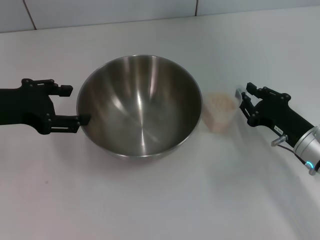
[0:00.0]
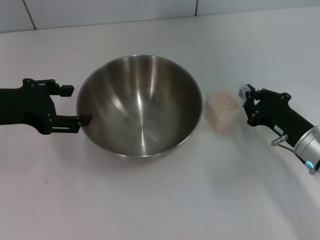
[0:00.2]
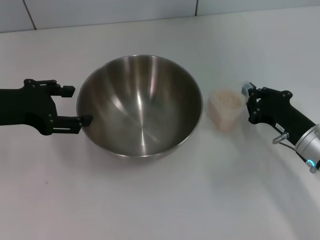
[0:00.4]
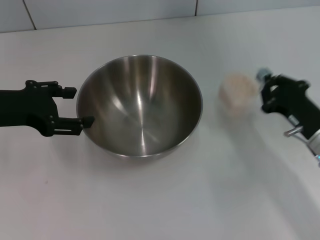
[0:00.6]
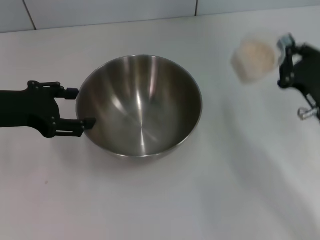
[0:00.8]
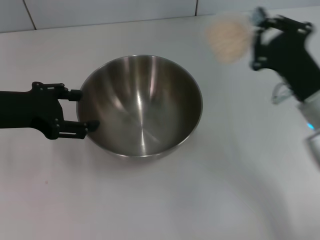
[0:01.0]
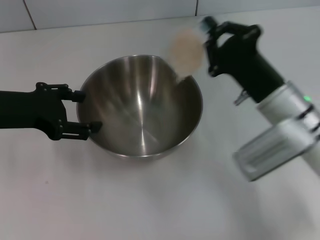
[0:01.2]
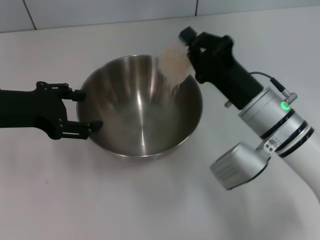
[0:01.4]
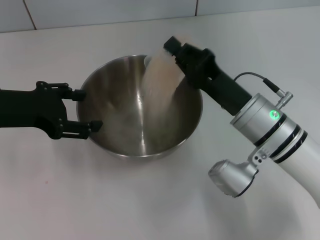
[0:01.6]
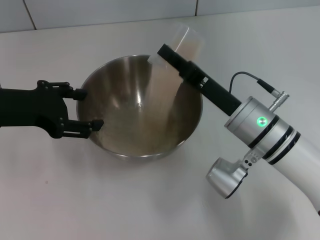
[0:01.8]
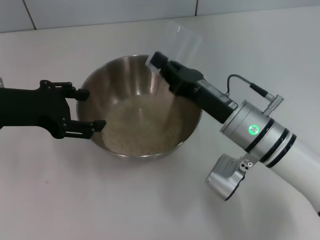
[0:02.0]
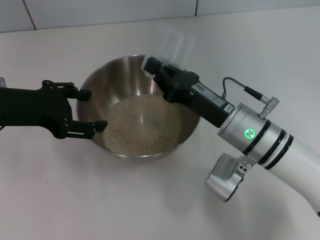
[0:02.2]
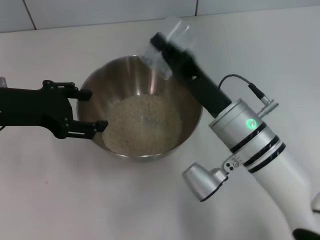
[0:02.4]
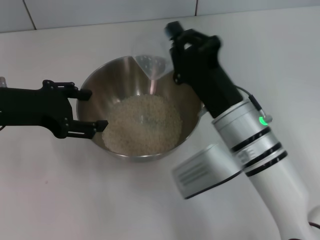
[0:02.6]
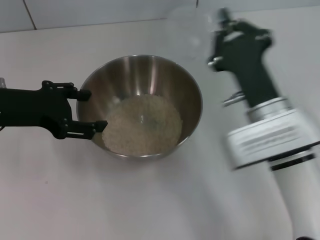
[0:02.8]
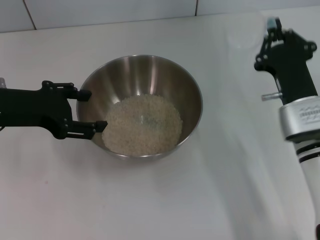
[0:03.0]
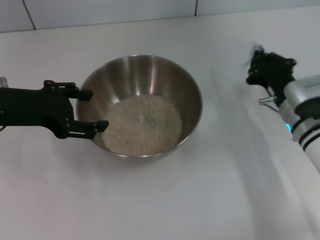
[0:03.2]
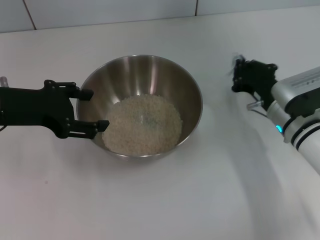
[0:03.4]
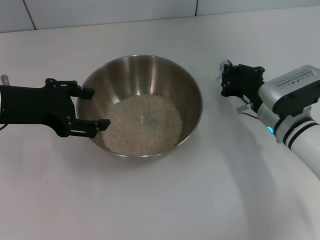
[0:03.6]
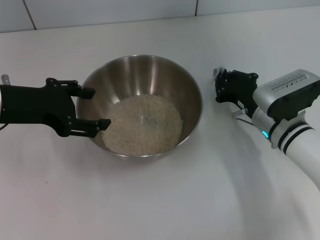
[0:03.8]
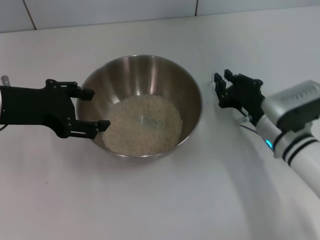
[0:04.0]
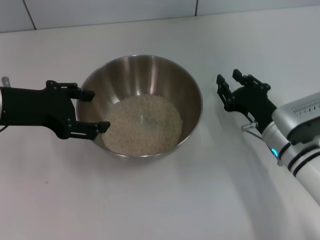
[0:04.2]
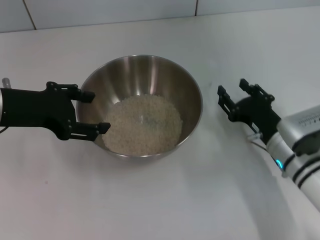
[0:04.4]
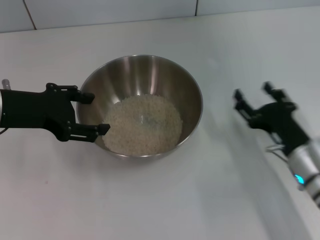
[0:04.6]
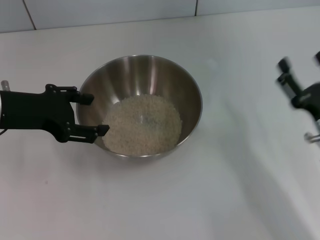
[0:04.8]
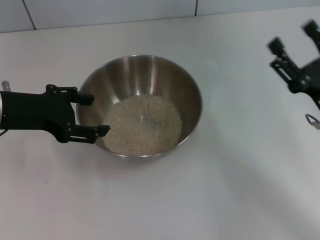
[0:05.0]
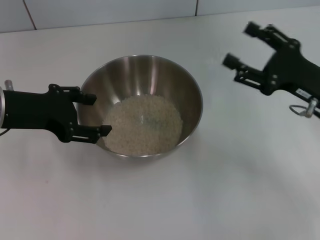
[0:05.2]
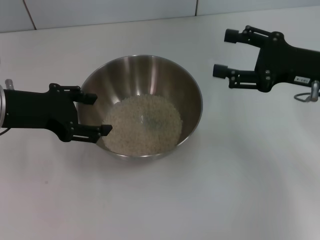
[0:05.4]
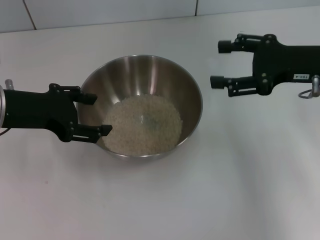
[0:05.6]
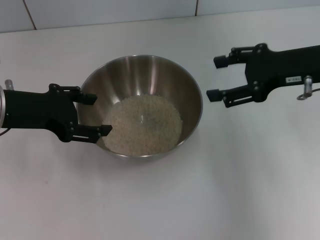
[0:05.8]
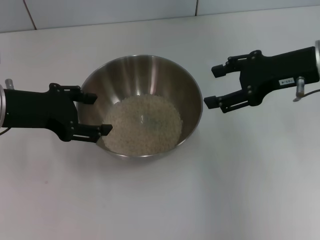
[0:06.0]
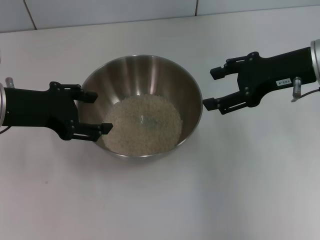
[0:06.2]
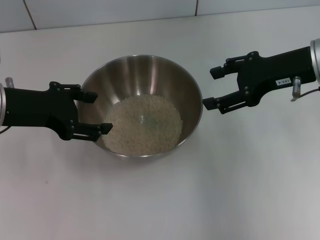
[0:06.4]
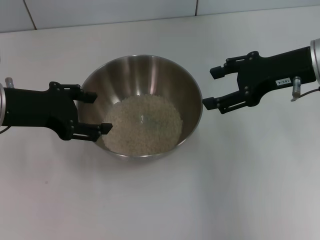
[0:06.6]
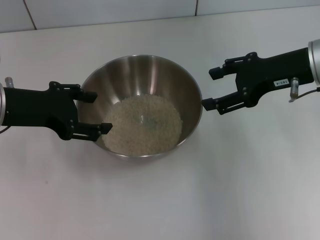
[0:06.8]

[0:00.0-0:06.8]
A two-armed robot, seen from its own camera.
Task of the whole recording: Place the bowl in the middle of the table with one hand and pour the rice from the grain cup into it with the other hand.
Step, 0:01.0 to 0:02.6: Pour the rice from the cup into the bowl with the right gripper.
Step, 0:02.8 to 0:04.2: Place the cup on the table with the right gripper.
0:00.0 to 0:01.4: The right gripper moves to the left and upward, approximately 10 cm, and closes its fingers.
0:02.8 to 0:04.0: The right gripper heads downward, covering about 5 cm.
0:04.0 to 0:05.4: The right gripper travels upward and to the right by some 15 cm, and opens its fingers.
0:05.4 to 0:06.8: The right gripper shifts by some 5 cm.

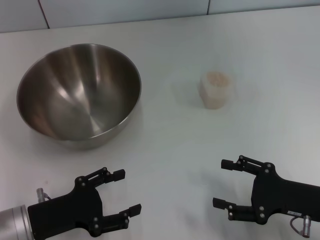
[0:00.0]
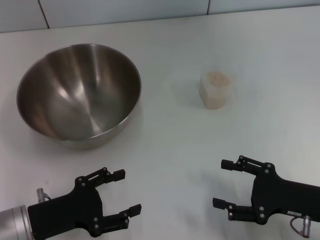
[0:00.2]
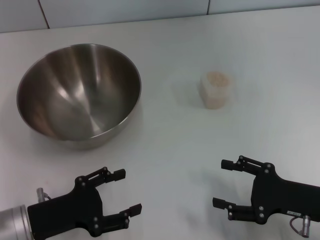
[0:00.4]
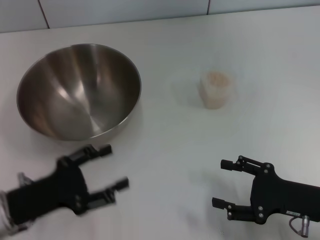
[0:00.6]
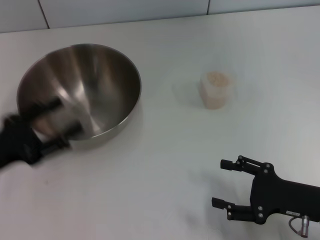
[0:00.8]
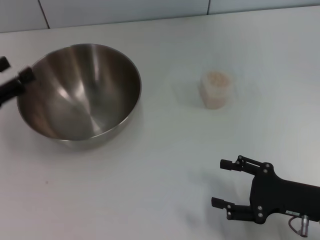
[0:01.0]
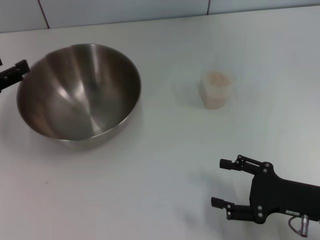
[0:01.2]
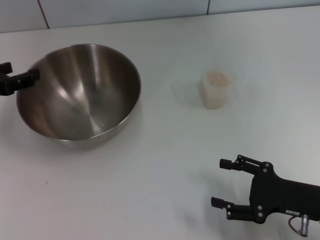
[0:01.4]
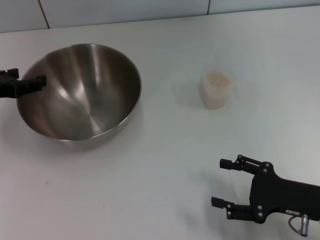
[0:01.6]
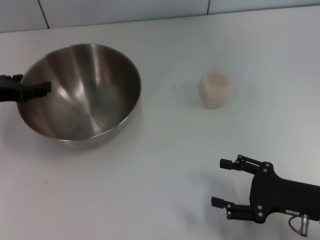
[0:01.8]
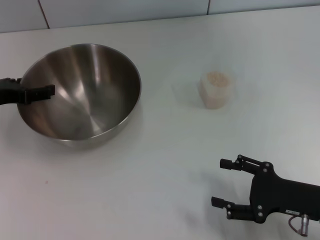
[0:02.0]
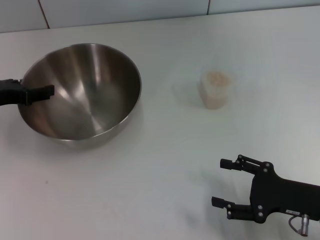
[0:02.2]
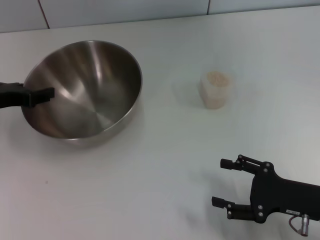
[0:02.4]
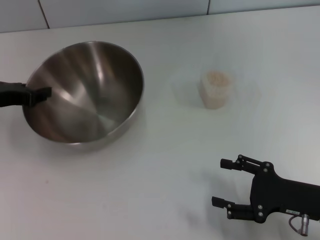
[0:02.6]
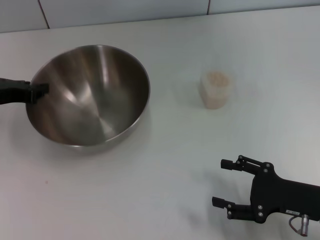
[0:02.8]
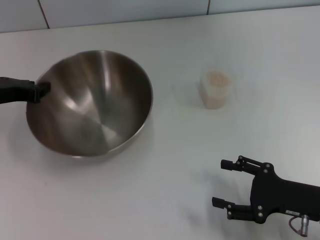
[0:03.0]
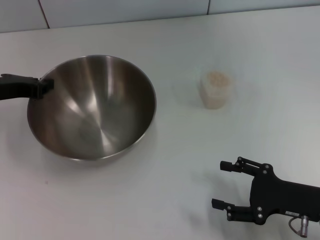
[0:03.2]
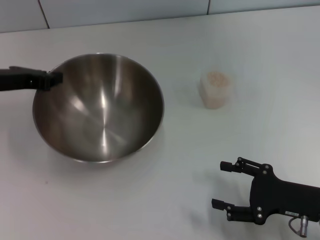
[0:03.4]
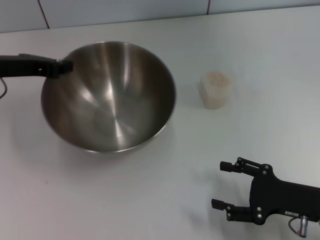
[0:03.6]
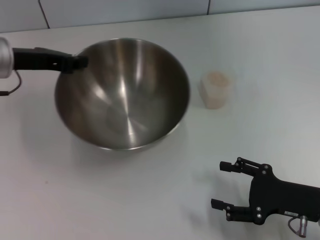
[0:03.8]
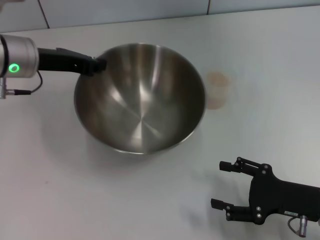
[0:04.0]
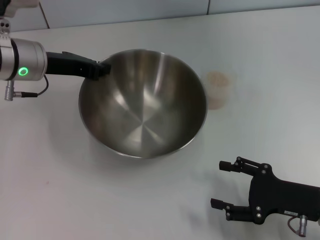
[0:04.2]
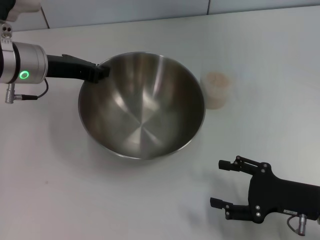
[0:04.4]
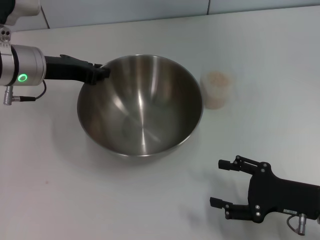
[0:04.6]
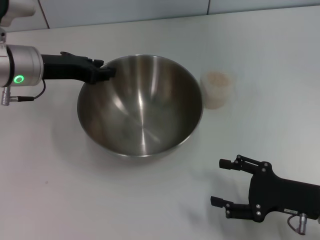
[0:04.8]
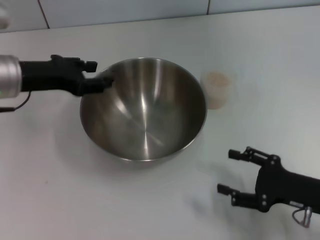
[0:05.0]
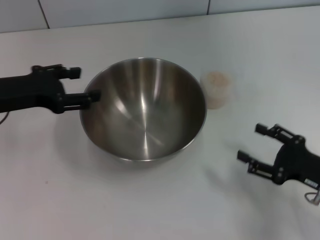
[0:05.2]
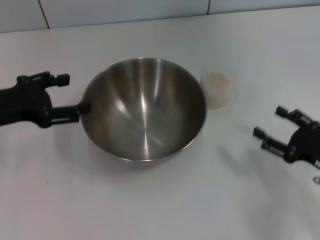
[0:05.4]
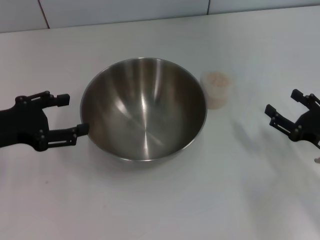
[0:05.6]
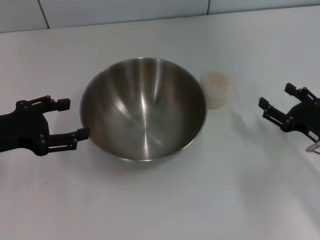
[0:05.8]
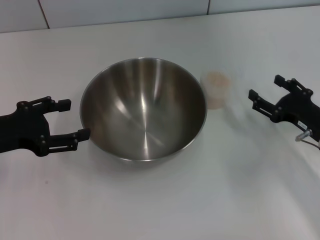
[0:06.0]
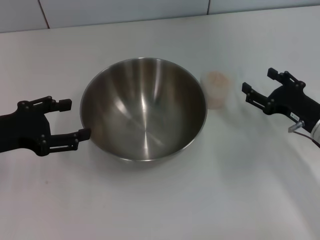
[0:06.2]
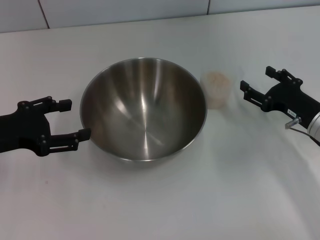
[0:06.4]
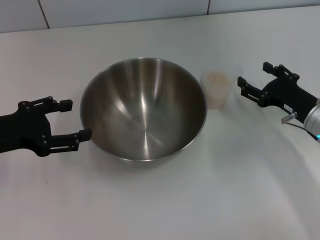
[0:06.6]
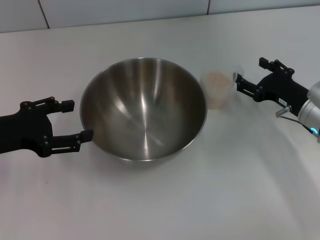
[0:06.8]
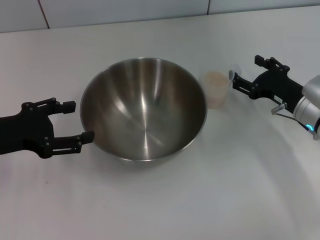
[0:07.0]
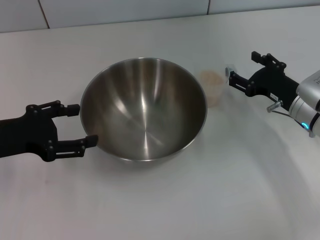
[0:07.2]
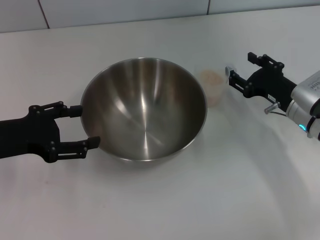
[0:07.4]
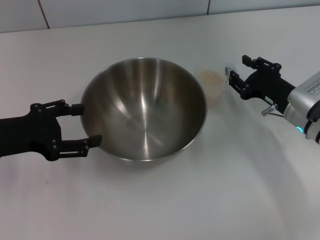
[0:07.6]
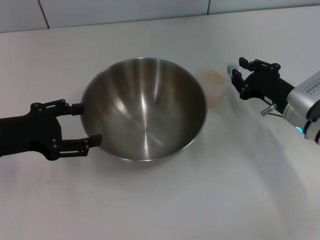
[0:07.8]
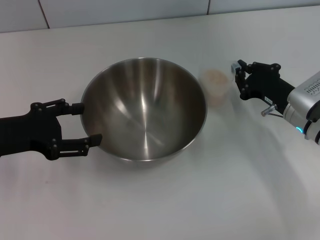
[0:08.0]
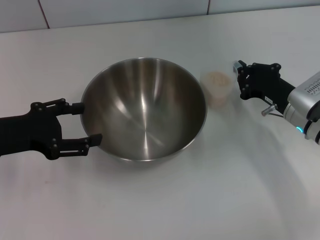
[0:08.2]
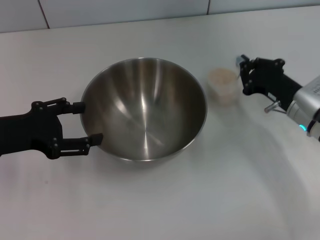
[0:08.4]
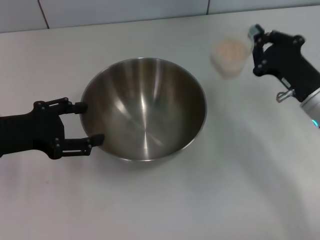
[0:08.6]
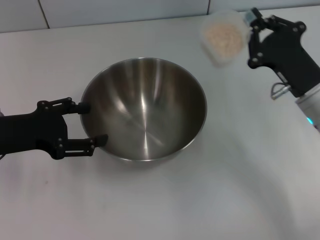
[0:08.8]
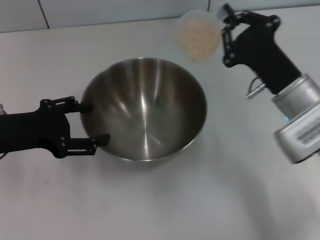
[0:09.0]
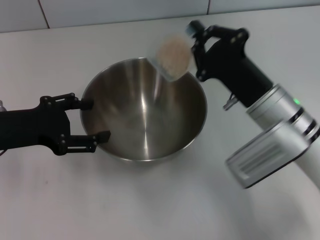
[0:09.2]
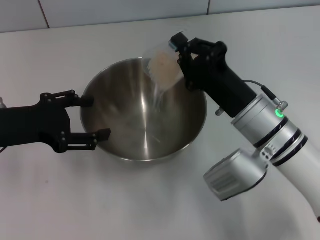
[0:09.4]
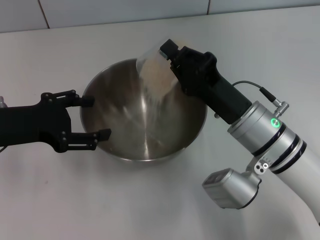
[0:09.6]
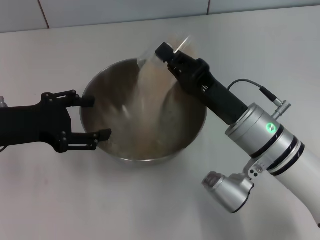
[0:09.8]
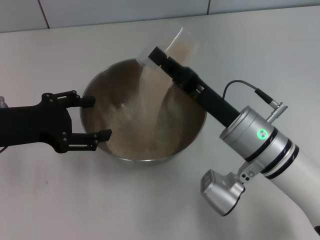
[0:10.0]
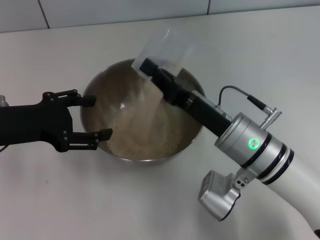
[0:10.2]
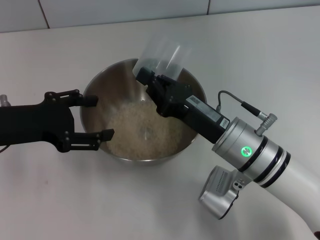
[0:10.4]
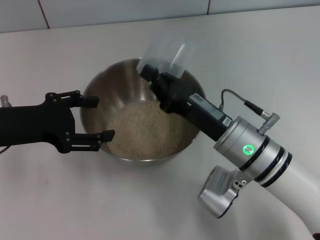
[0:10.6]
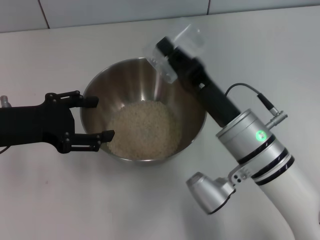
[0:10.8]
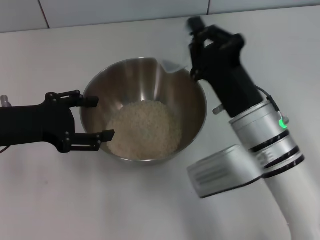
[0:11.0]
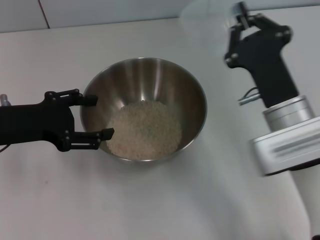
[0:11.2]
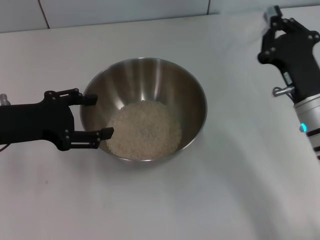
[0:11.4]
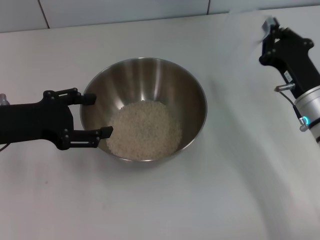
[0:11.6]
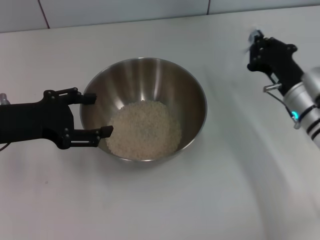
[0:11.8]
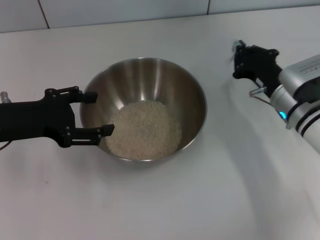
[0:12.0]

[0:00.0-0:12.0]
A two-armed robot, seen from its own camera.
Task of the whole recording: Place the bowl in the middle of the table with one hand and pour the rice from the grain cup into it with the other hand.
Step, 0:00.0 to 0:03.0: Pick up the bowl with the left gripper.
Step, 0:03.4 to 0:05.2: Place the bowl in the center of view with the left gripper.
Step, 0:05.4 to 0:08.6: Pick up the cup with rice in it with the right gripper.
Step, 0:08.8 to 0:11.0: Pour the rice from the cup into the bowl with the right gripper.
0:00.0 to 0:01.6: The left gripper goes roughly 20 cm forward, upward and to the left.
0:01.6 to 0:03.0: The left gripper closes its fingers.
0:03.0 to 0:04.4: The left gripper travels to the right by roughly 10 cm.
0:04.4 to 0:06.0: The right gripper heads forward, covering some 10 cm, while the left gripper moves backward and to the left, approximately 15 cm, and opens up.
0:06.0 to 0:07.6: The right gripper goes roughly 5 cm forward.
0:07.6 to 0:09.0: The right gripper shifts about 10 cm to the left and upward, and closes up.
0:09.0 to 0:10.4: The right gripper moves to the left, roughly 10 cm.
0:10.4 to 0:12.0: The right gripper moves to the right and forward, about 15 cm.

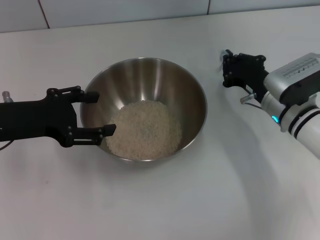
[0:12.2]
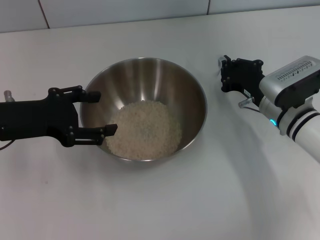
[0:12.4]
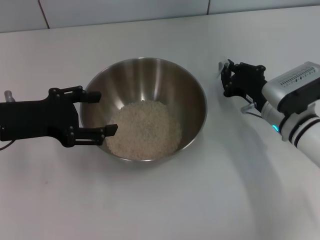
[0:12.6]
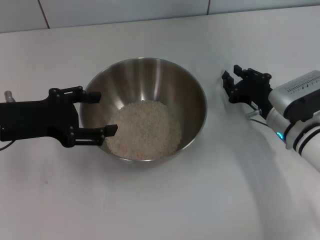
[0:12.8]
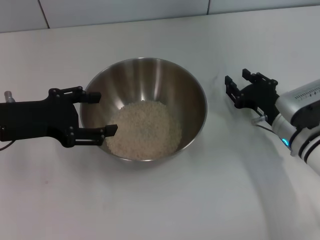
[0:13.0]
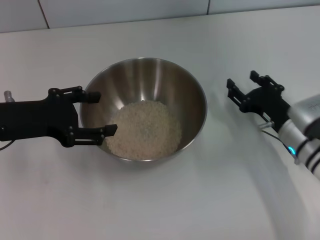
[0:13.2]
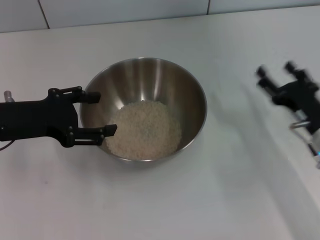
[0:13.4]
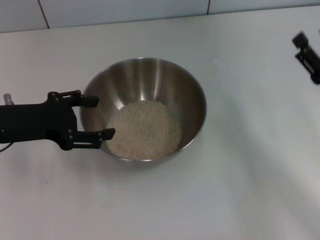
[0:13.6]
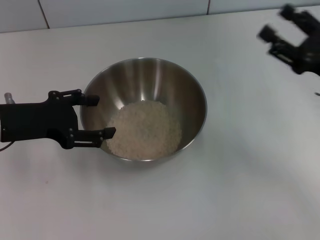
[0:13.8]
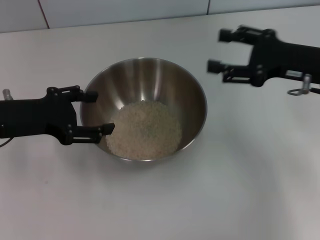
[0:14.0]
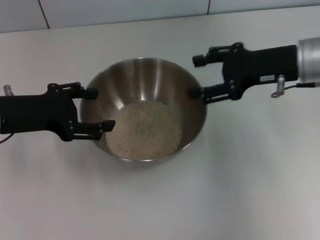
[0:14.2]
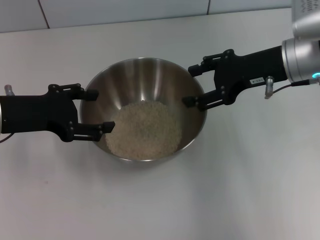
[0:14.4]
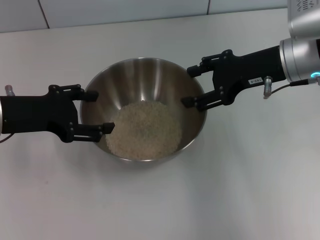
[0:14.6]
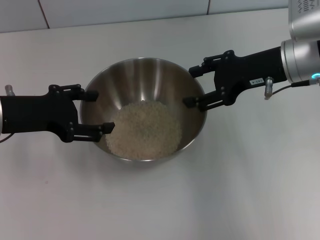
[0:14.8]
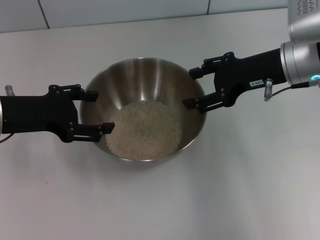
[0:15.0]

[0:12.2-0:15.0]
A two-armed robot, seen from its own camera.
Task of the whole recording: Place the bowl in the middle of the table with one hand and pour the rice from the grain cup into it with the other hand.
Step, 0:12.2 to 0:13.2: Place the cup on the table with the right gripper.
0:12.2 to 0:13.6: The right gripper goes approximately 15 cm backward and to the right, and opens up.
0:13.6 to 0:15.0: The right gripper is displaced forward, upward and to the left by roughly 15 cm.
